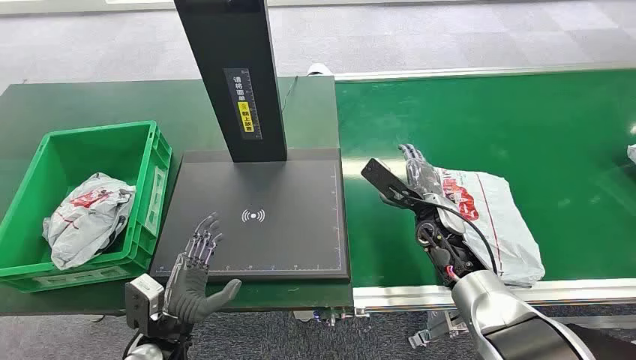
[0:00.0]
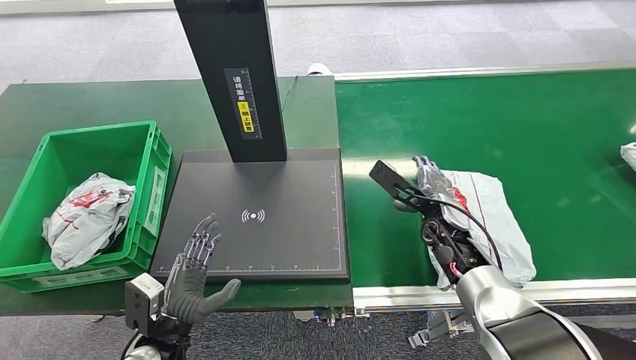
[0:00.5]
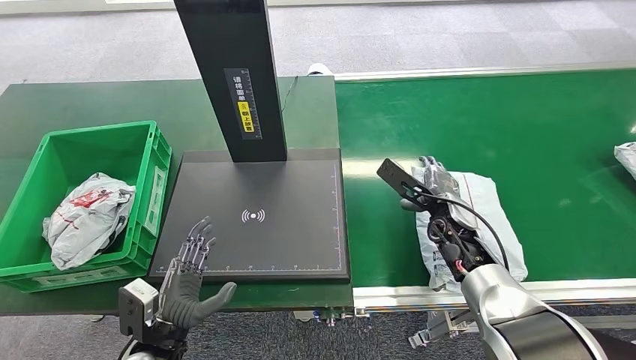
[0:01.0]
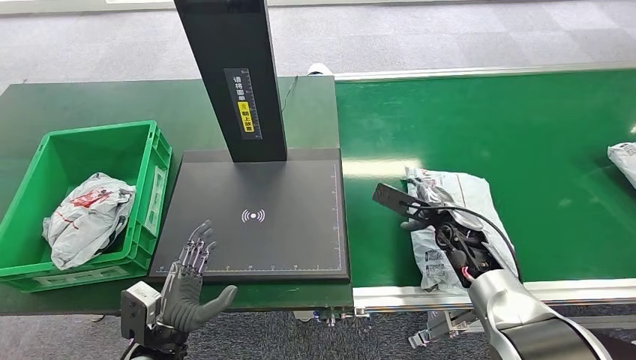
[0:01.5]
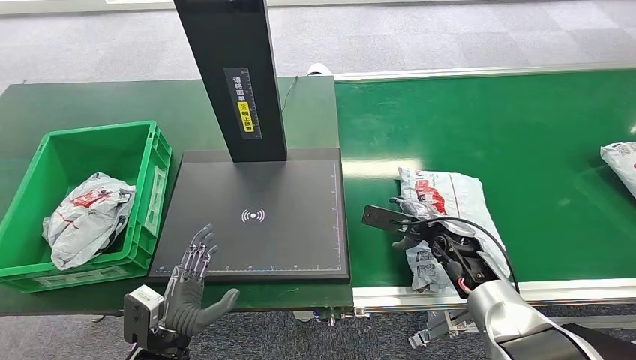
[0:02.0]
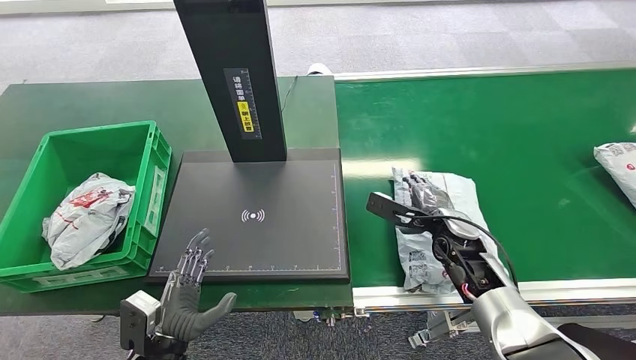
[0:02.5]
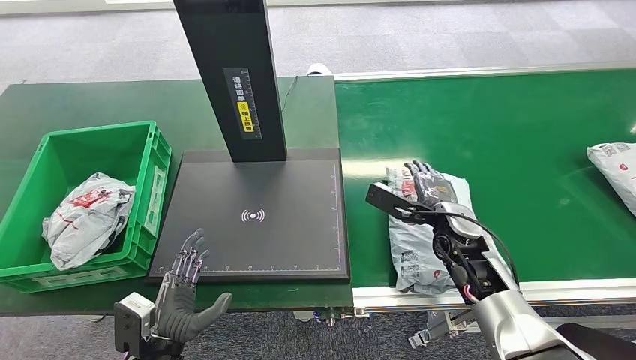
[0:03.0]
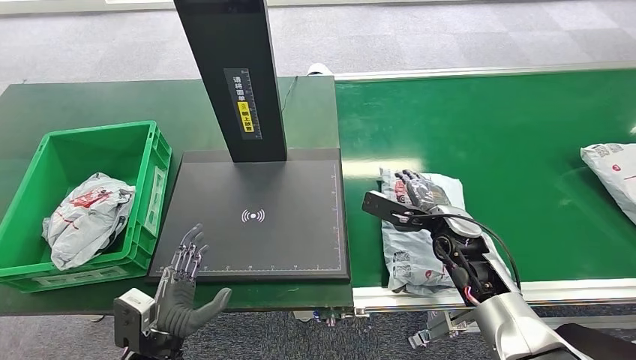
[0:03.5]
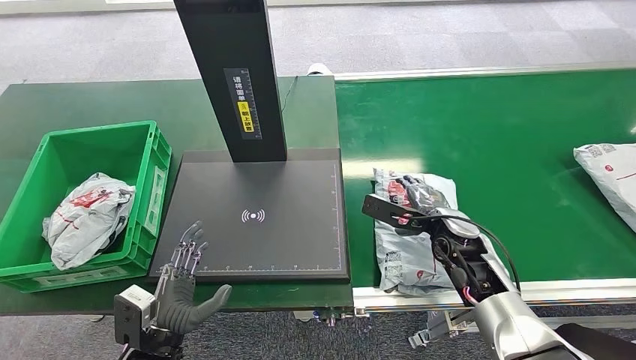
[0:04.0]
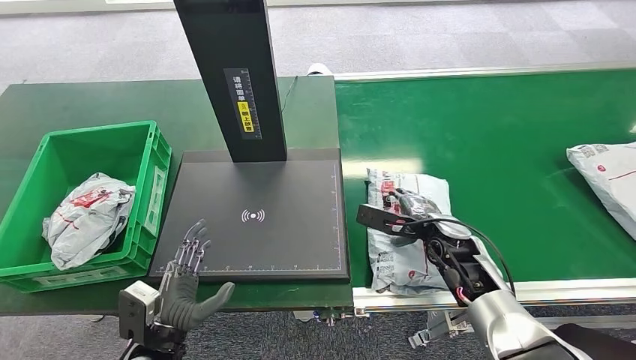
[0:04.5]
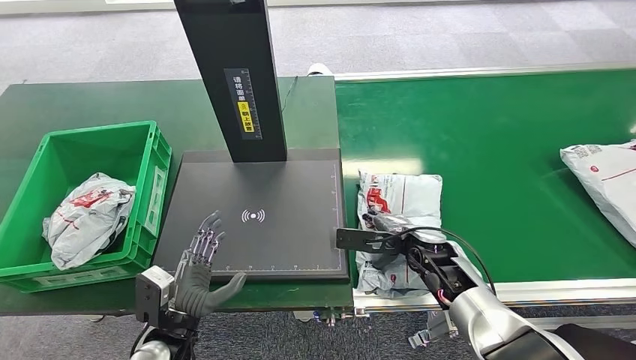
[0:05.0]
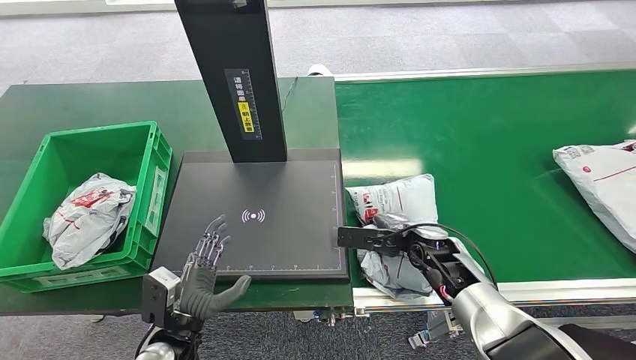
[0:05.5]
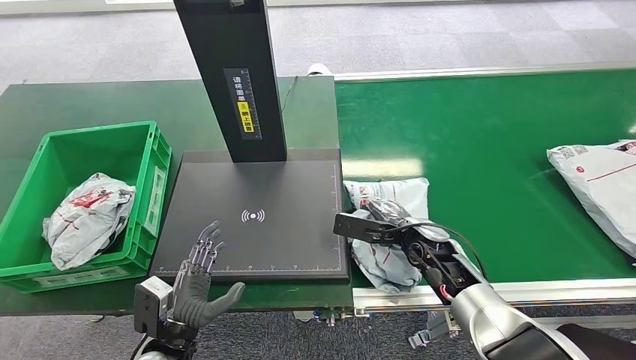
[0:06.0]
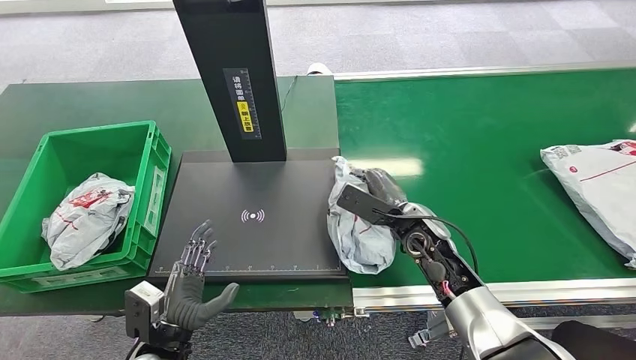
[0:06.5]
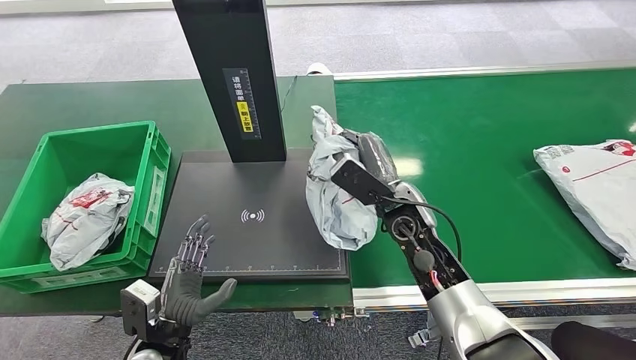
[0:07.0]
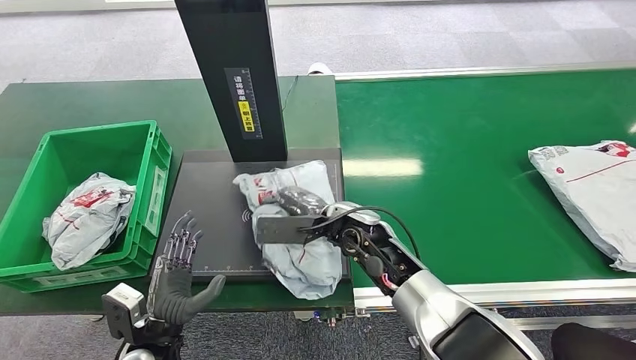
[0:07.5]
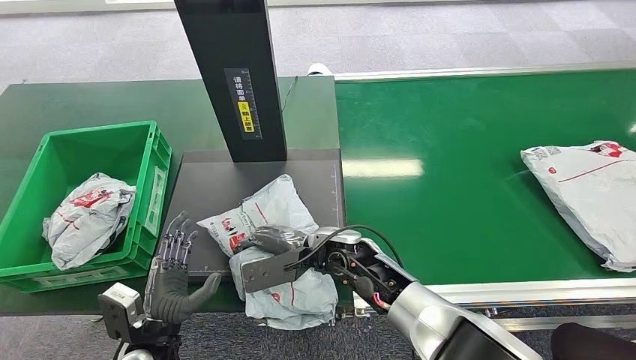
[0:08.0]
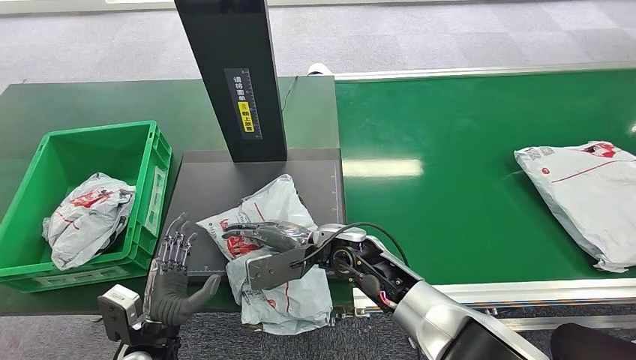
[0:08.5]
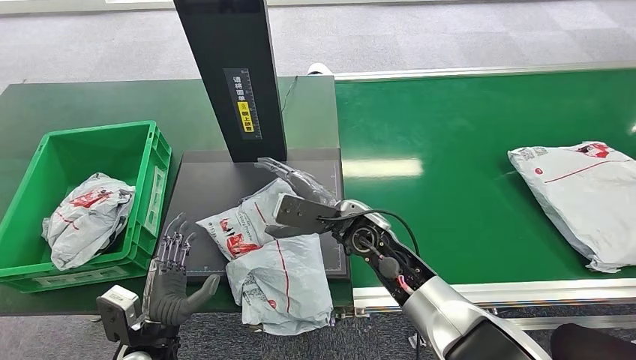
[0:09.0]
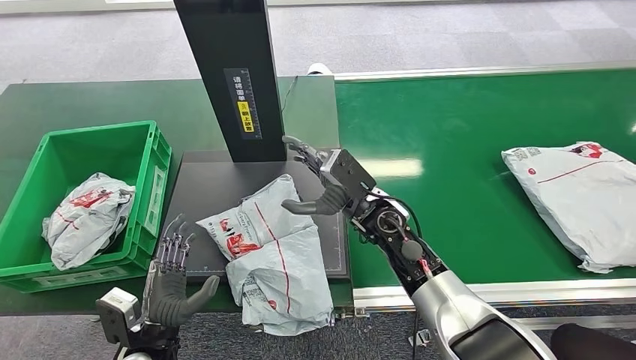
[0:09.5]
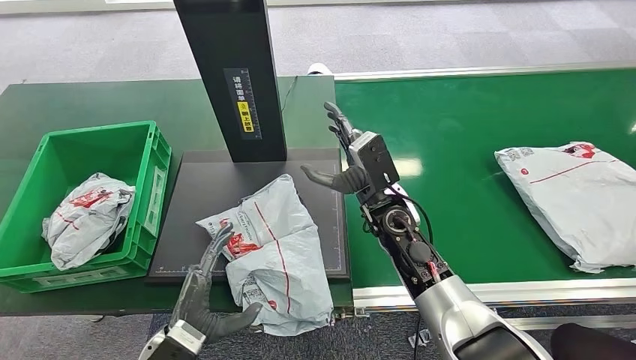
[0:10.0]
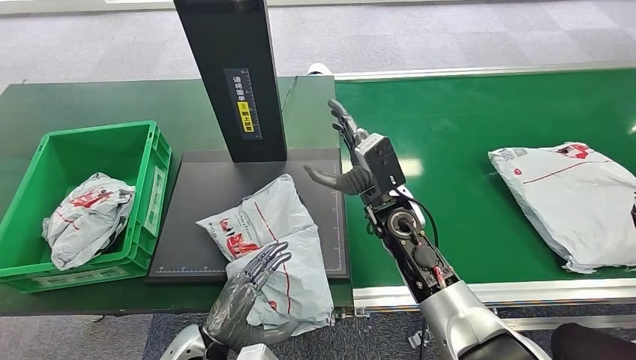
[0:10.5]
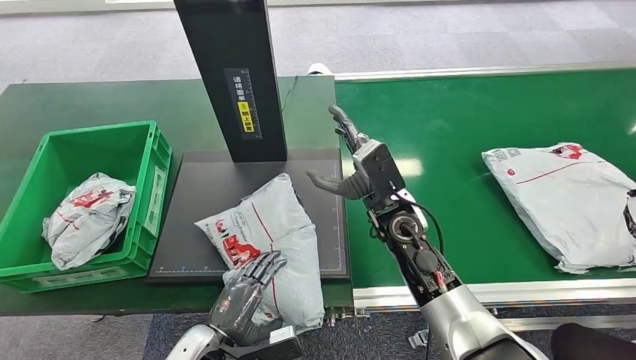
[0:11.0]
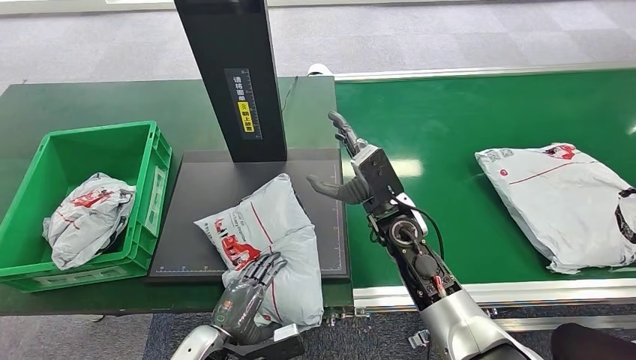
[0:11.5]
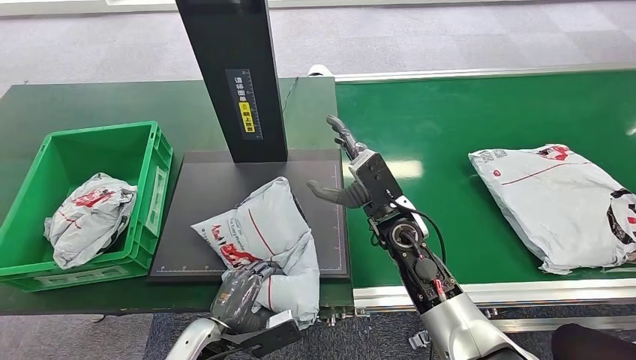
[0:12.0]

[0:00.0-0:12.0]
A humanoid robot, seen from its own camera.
Step, 0:00.0 to 0:06.5: Pick up the package from the conveyor belt.
Step, 0:07.0 to 0:09.5: Place the package onto the inbound machine.
0:08.0 to 0:10.0: The right hand moves to the right, roughly 5 cm.

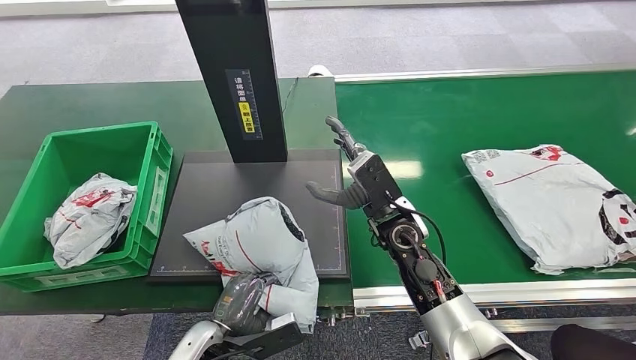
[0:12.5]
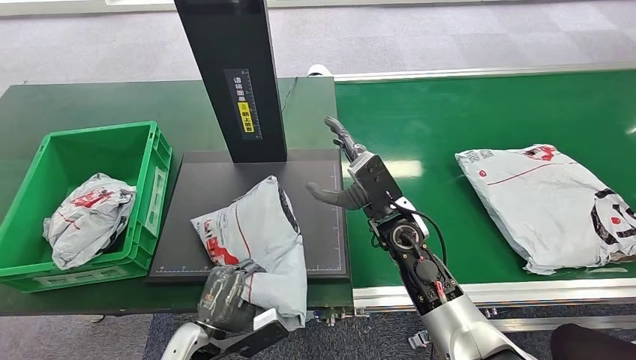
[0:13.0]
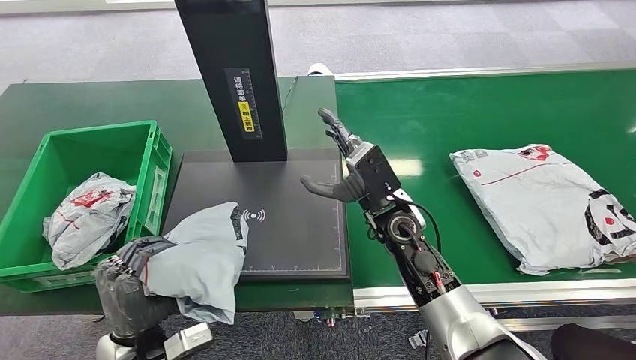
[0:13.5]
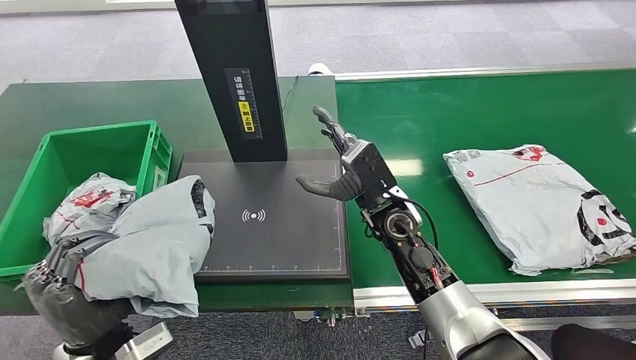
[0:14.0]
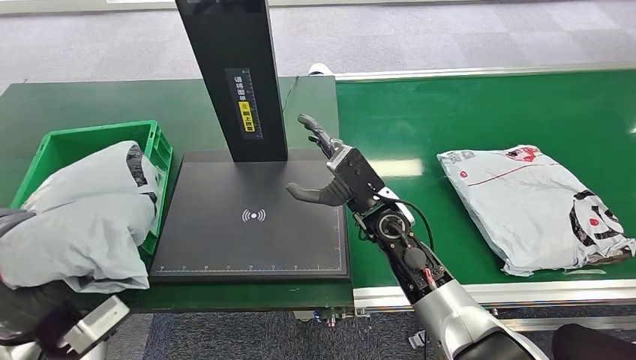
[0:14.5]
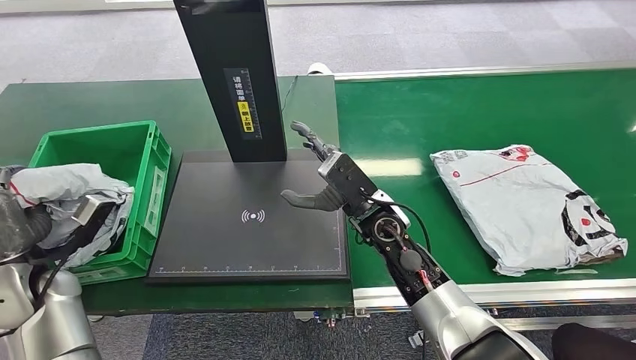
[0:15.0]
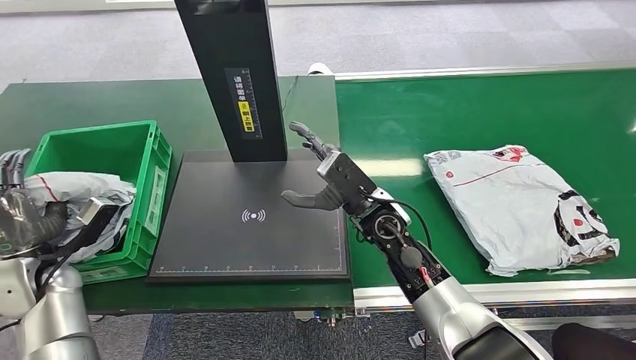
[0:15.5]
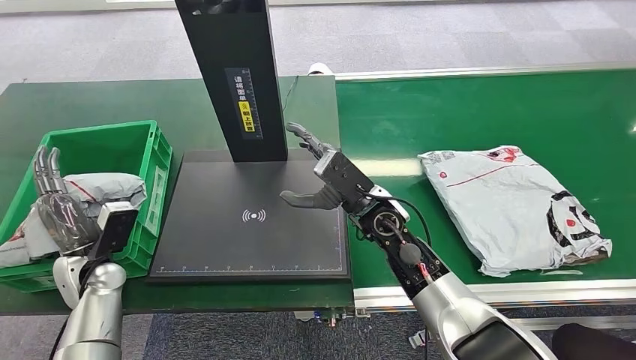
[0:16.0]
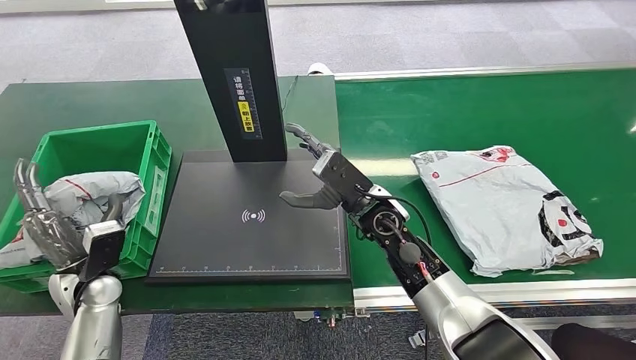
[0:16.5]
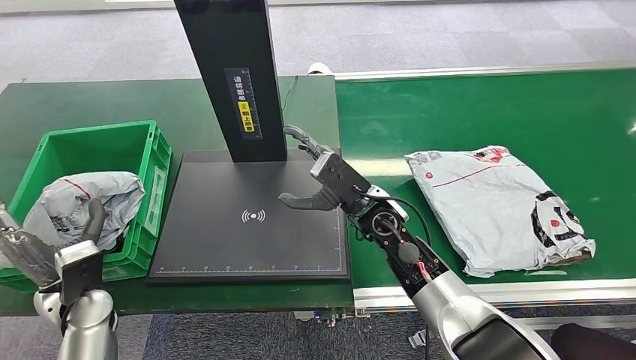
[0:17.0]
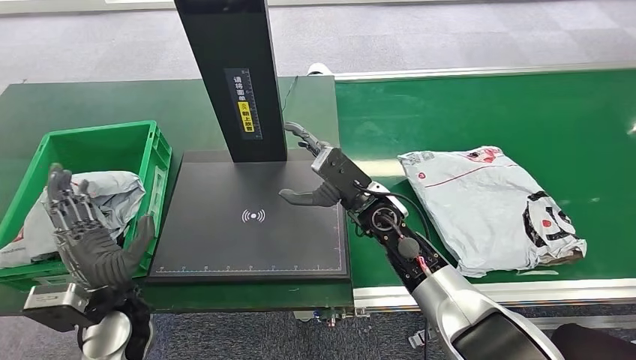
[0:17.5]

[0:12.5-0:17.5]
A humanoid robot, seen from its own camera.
Step, 0:14.5 to 0:17.5: Place the package into the parcel locker.

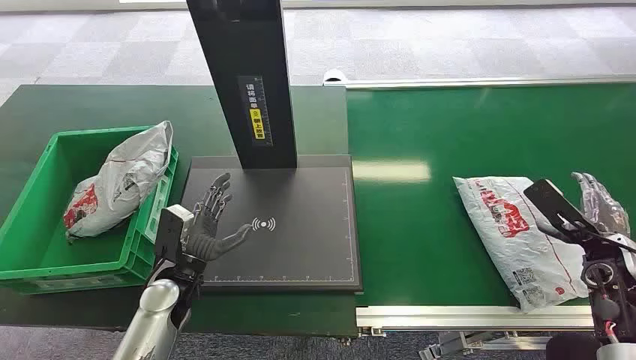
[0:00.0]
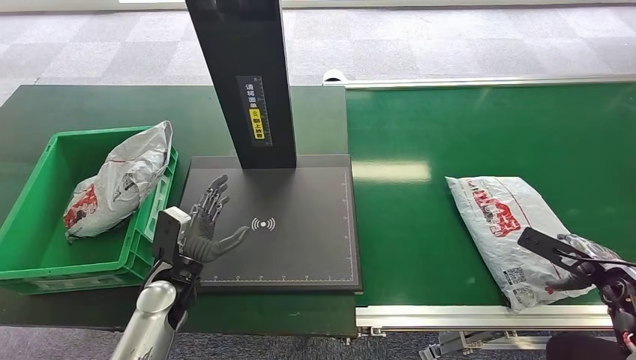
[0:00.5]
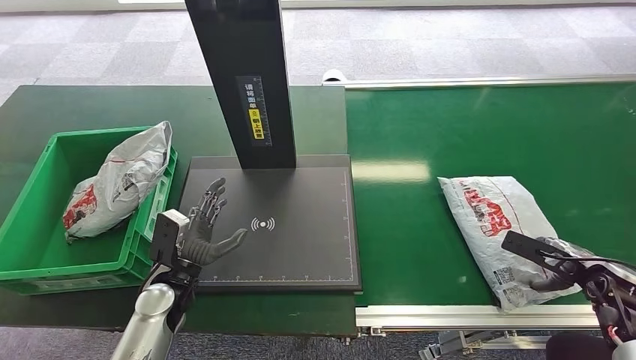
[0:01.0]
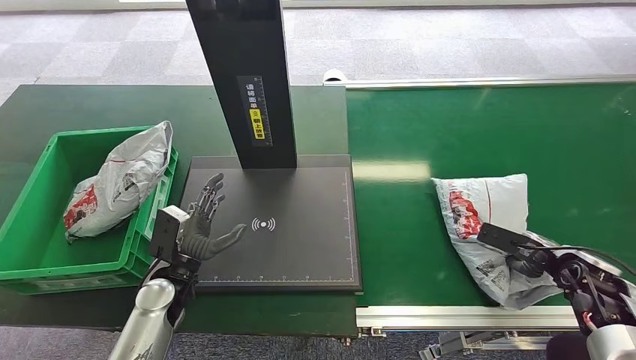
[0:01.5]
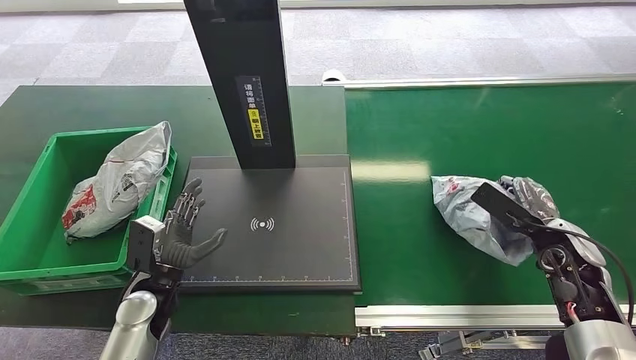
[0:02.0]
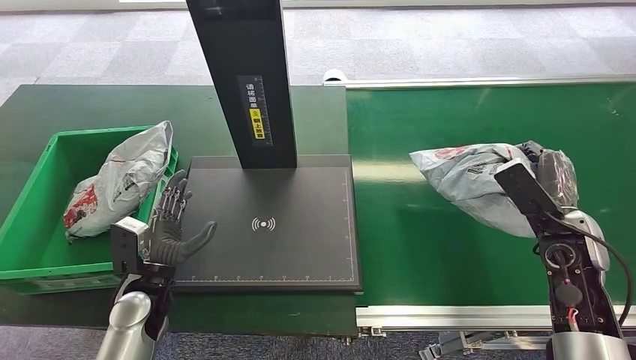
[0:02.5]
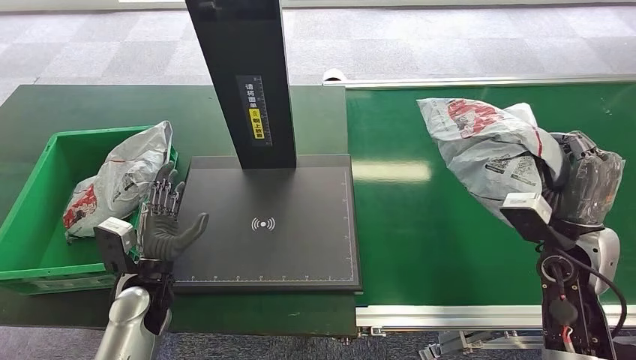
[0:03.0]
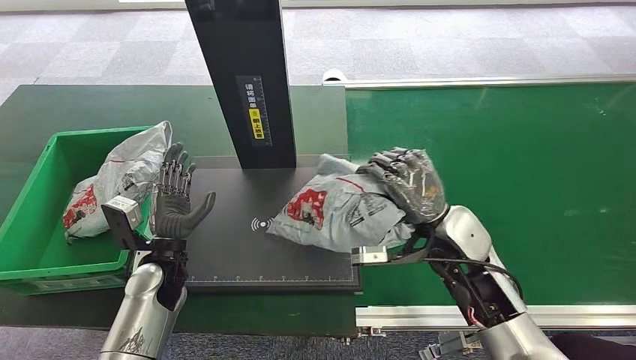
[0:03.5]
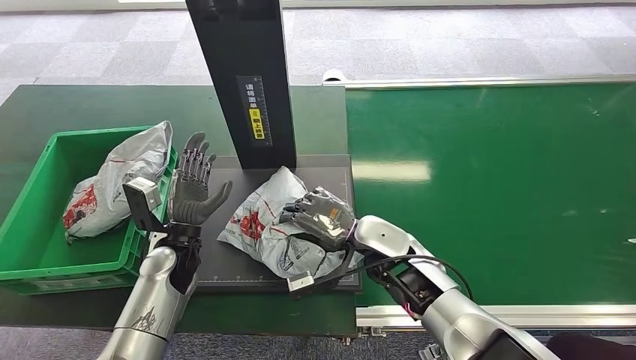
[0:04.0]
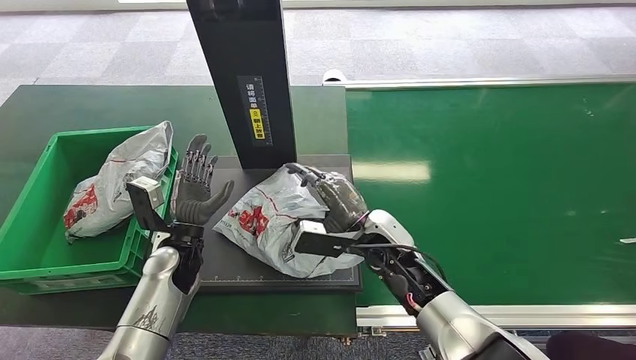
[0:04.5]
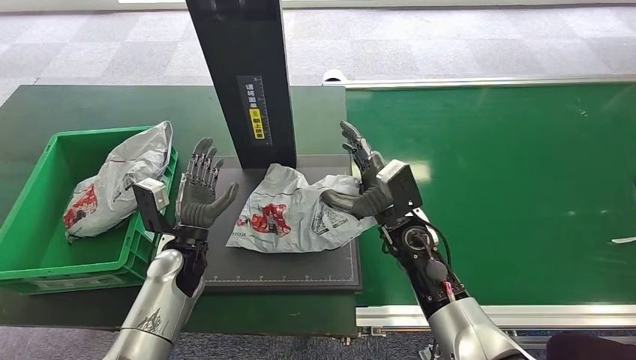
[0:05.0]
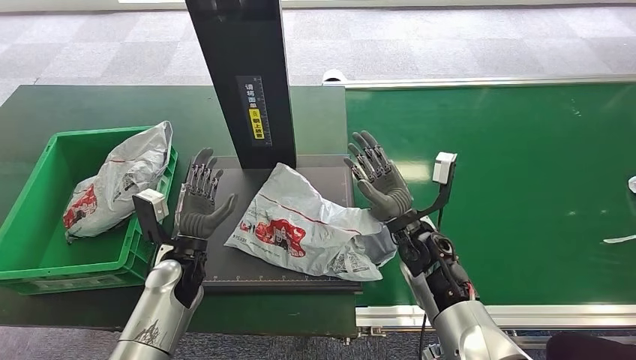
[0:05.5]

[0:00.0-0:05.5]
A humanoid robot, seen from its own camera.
Step, 0:00.0 to 0:02.0: Pick up the package from the conveyor belt.
Step, 0:02.5 to 0:05.0: Place the package onto the inbound machine.
0:02.0 to 0:03.5: The right hand heads to the left, covering roughly 20 cm, while the left hand changes place by about 5 cm.
0:03.5 to 0:05.5: The right hand travels downward by some 5 cm.
